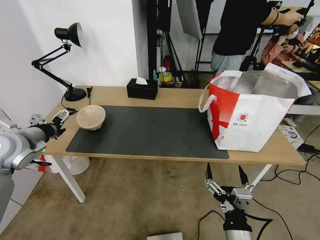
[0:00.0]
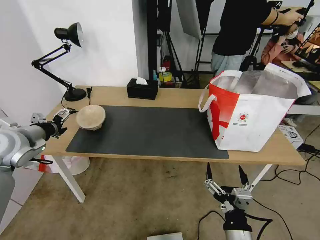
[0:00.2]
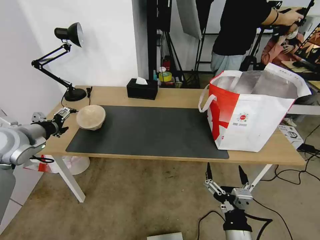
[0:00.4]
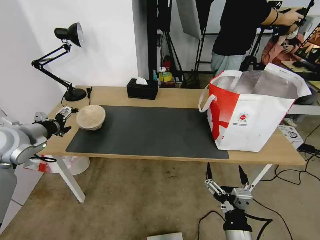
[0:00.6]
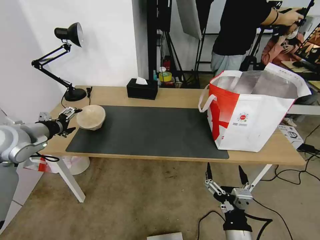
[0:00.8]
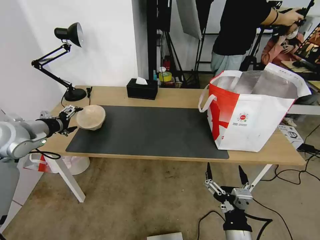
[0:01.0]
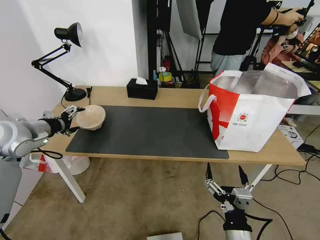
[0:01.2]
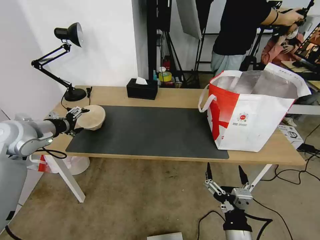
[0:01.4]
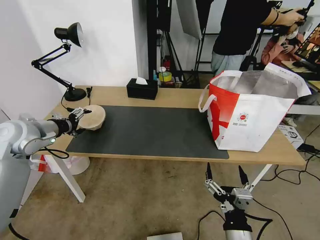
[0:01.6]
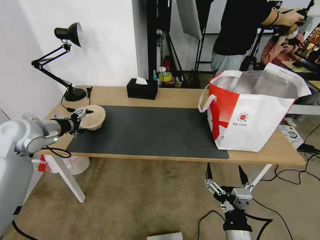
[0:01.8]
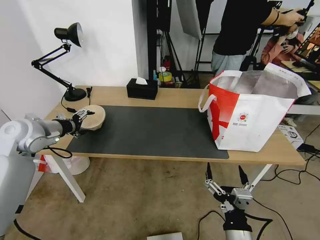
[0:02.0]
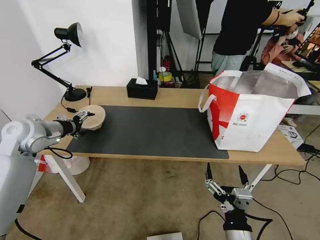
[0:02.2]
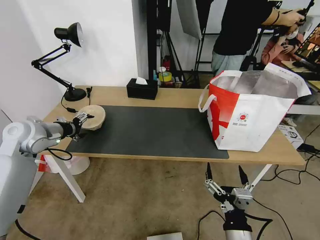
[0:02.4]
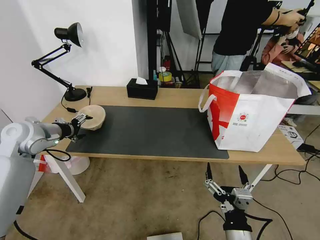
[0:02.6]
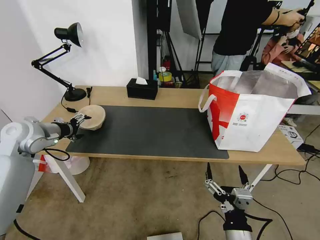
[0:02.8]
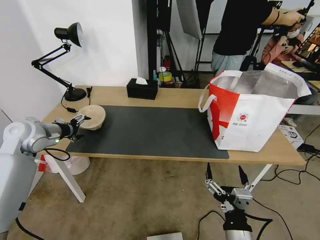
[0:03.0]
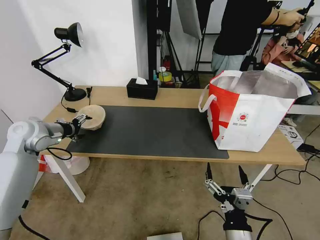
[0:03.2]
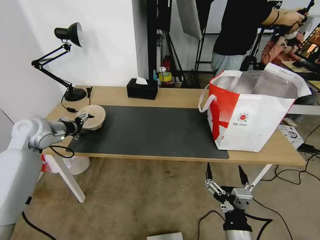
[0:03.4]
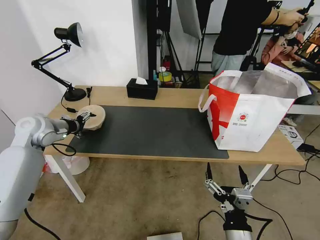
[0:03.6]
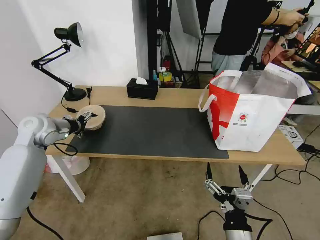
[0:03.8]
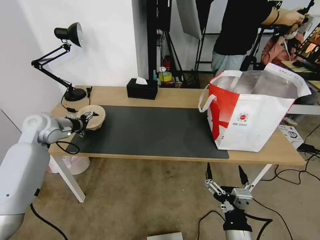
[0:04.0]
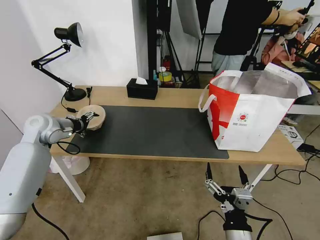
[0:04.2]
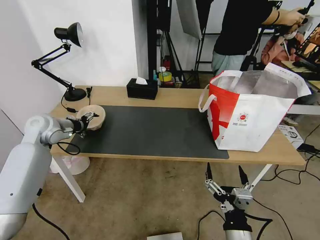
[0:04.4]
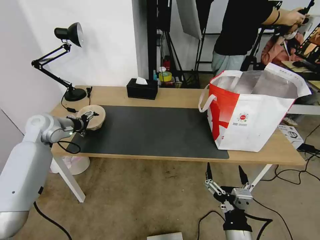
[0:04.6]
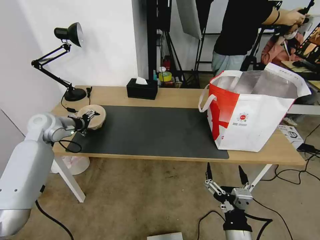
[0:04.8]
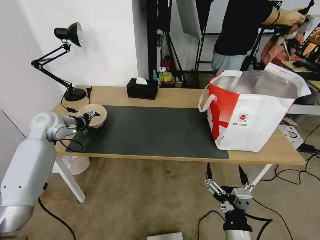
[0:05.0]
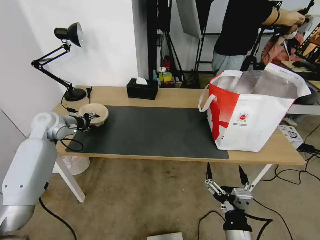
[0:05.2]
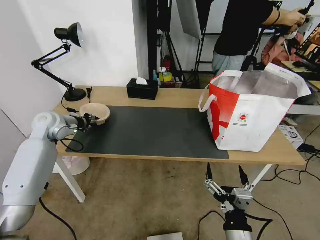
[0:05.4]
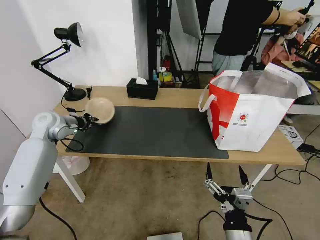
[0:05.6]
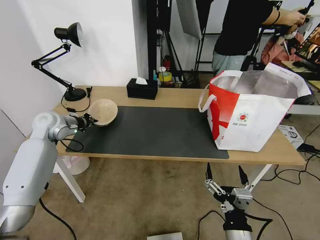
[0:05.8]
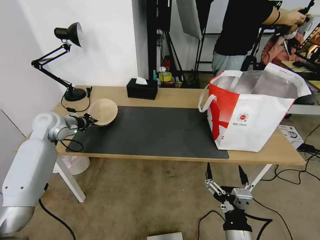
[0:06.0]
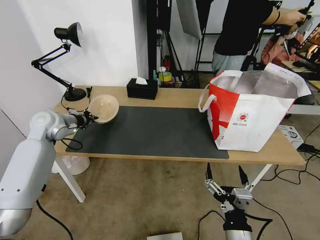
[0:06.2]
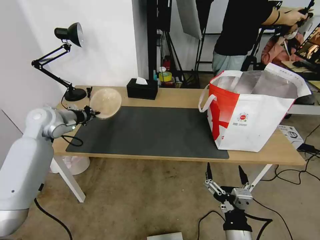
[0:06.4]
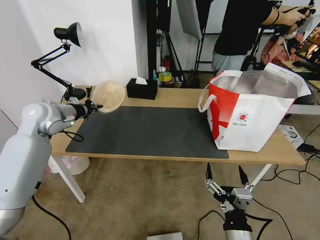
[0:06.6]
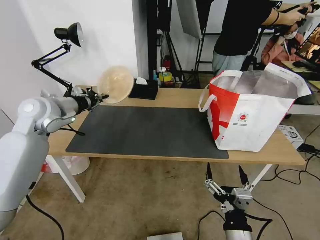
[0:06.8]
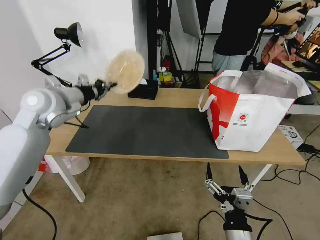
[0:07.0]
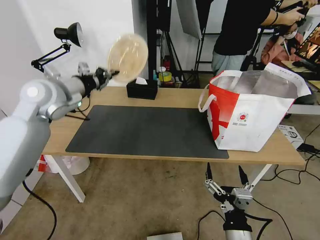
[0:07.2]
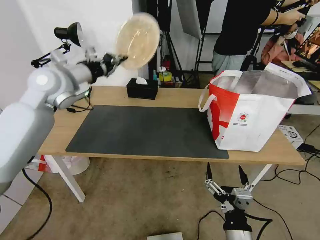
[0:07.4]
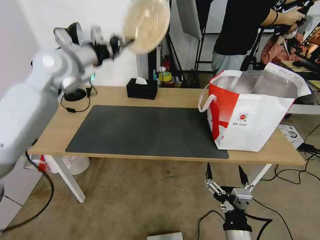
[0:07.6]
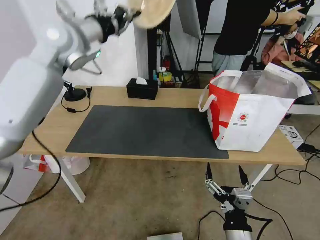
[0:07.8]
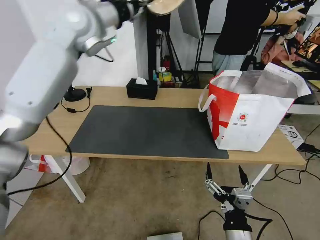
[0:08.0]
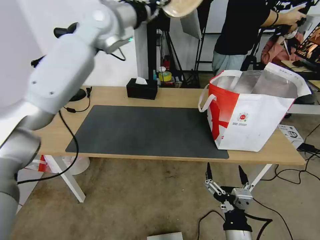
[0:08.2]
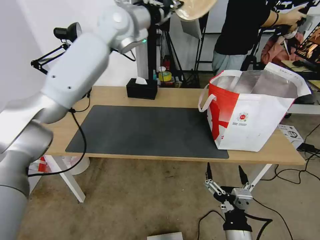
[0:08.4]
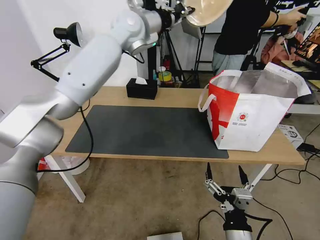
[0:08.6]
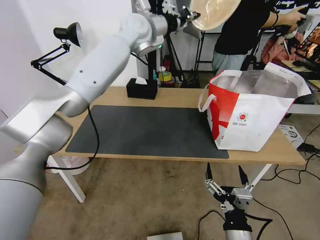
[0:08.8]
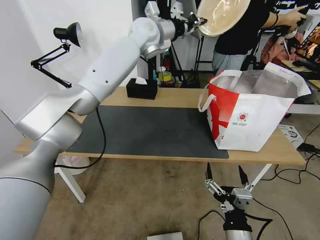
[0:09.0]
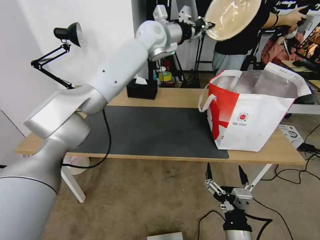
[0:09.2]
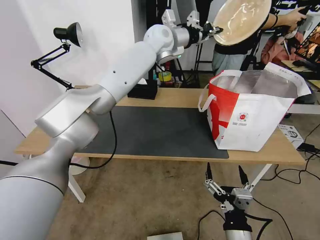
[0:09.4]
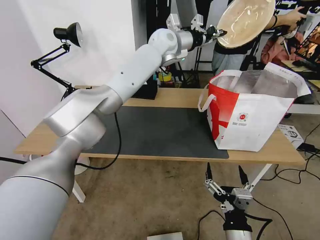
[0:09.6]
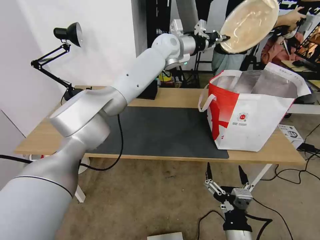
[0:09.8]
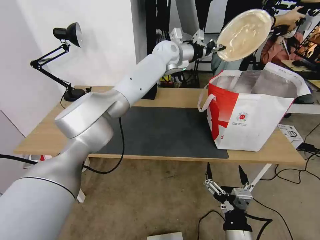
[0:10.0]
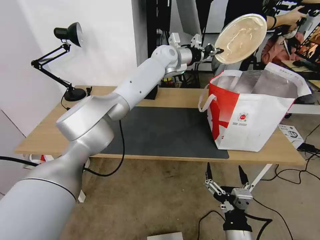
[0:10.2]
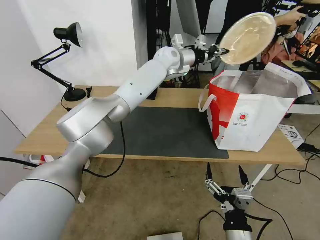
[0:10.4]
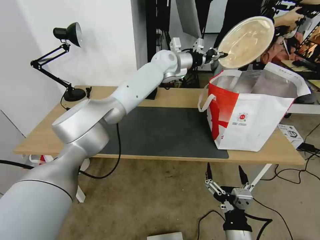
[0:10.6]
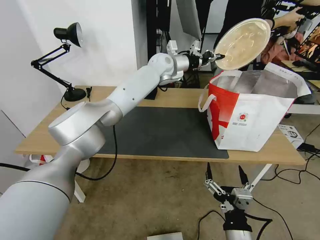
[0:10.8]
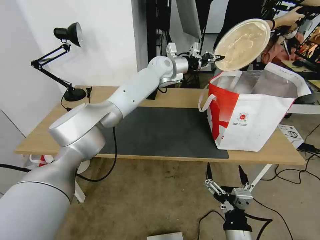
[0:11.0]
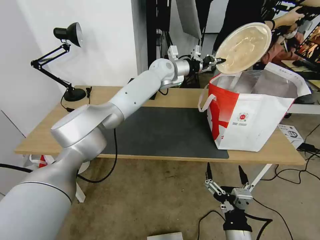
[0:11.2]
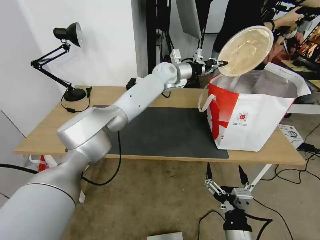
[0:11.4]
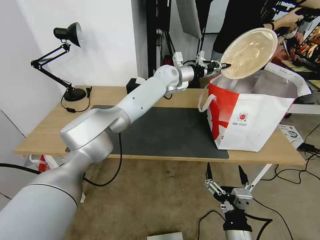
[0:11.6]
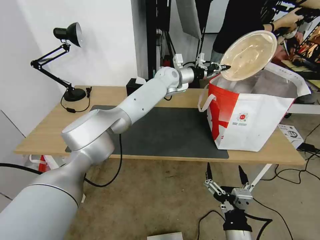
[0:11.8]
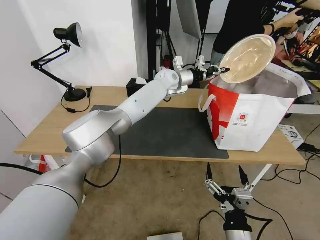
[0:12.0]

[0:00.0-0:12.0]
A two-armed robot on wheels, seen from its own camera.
Task of the whole recording: Pick up the trash from the table and place it into the takeout bag.
0:00.0 to 0:01.6: The grippers stay close to where they were, moving slightly.
0:01.6 to 0:03.0: The grippers stay close to where they were, moving slightly.
0:03.0 to 0:04.4: The left gripper shifts by about 5 cm.
0:04.4 to 0:06.0: The left gripper closes.
0:06.0 to 0:07.6: The left gripper heads upward and to the right, covering about 20 cm.
0:07.6 to 0:09.0: The left gripper moves to the right and forward, about 25 cm.
0:09.0 to 0:10.4: The left gripper goes roughly 10 cm downward and to the right.
0:10.4 to 0:12.0: The left gripper moves downward, roughly 10 cm.

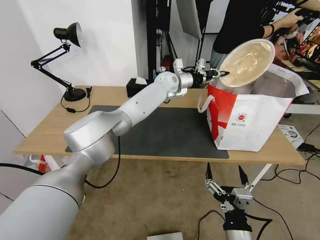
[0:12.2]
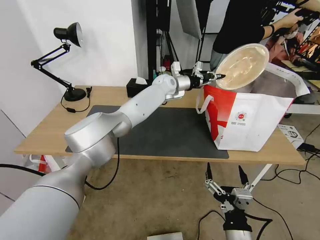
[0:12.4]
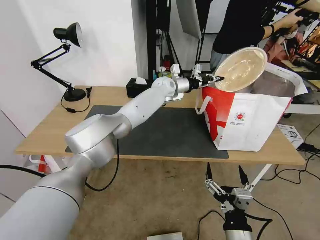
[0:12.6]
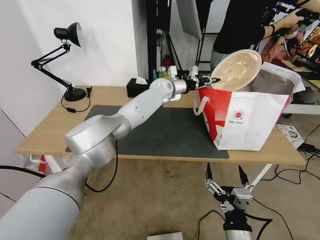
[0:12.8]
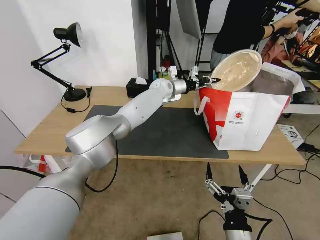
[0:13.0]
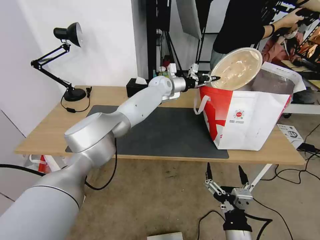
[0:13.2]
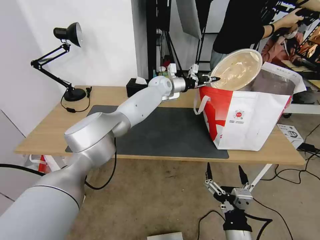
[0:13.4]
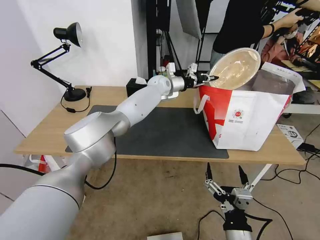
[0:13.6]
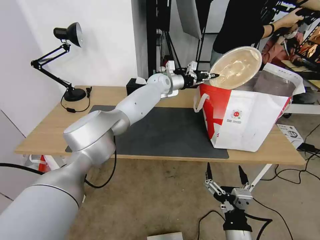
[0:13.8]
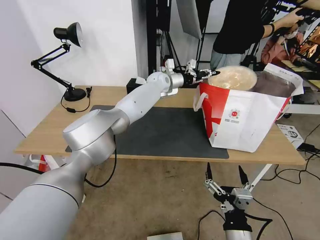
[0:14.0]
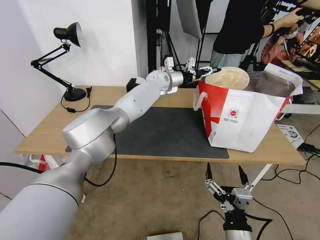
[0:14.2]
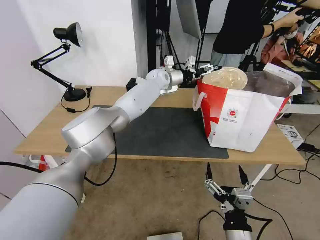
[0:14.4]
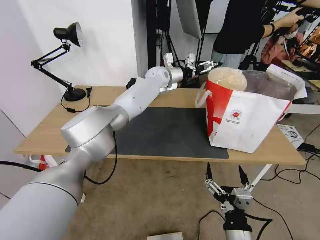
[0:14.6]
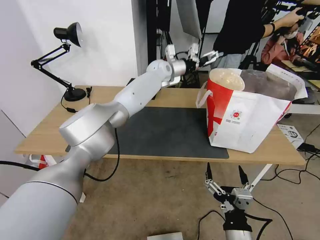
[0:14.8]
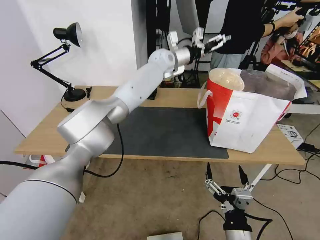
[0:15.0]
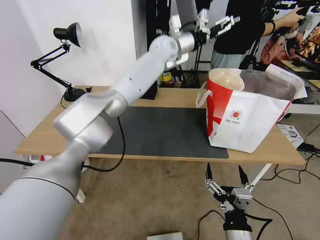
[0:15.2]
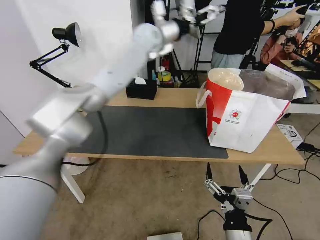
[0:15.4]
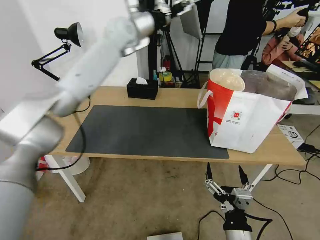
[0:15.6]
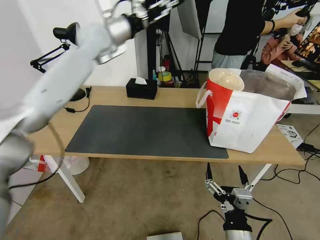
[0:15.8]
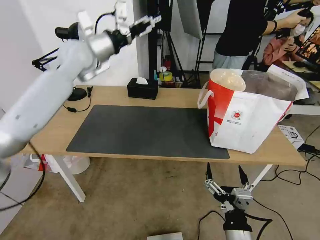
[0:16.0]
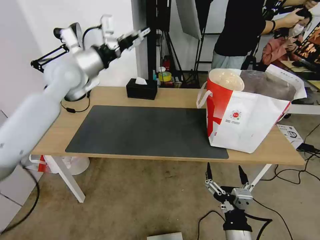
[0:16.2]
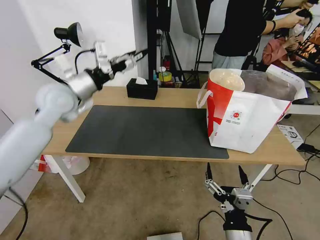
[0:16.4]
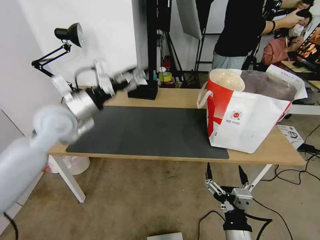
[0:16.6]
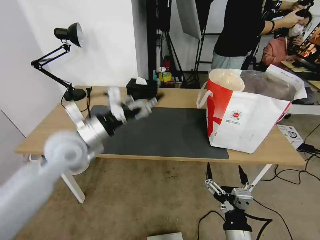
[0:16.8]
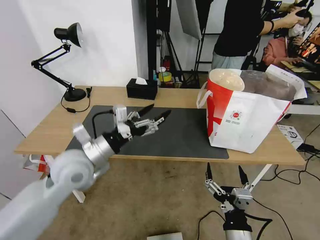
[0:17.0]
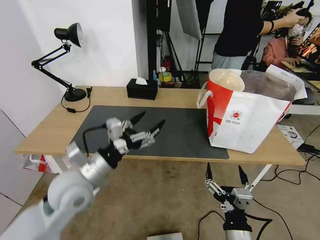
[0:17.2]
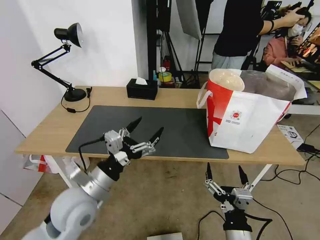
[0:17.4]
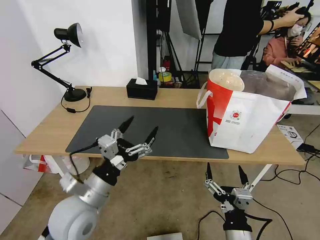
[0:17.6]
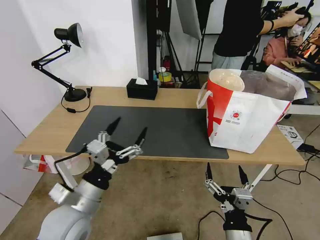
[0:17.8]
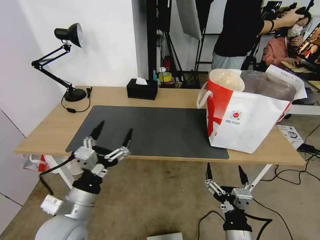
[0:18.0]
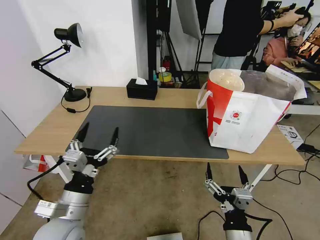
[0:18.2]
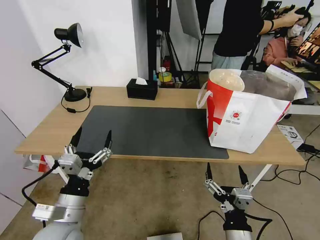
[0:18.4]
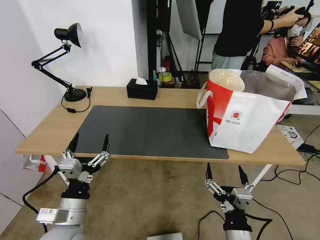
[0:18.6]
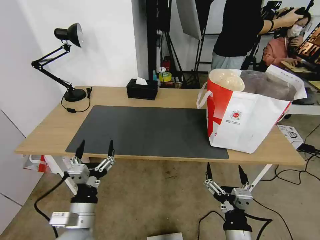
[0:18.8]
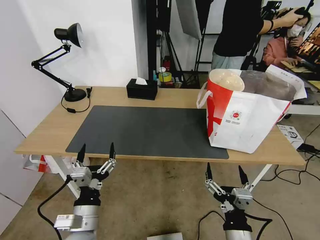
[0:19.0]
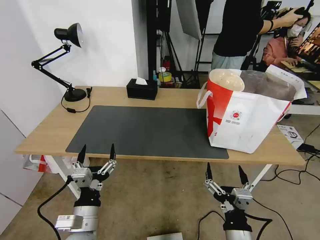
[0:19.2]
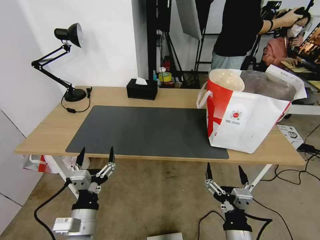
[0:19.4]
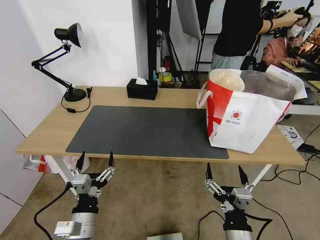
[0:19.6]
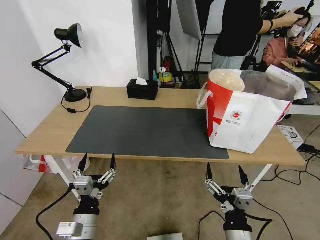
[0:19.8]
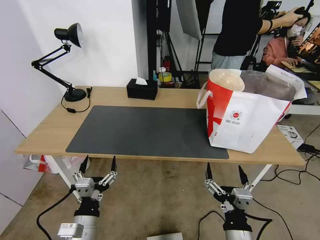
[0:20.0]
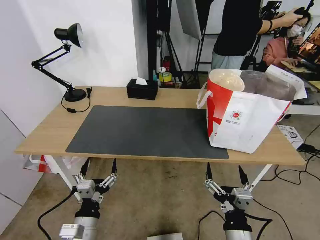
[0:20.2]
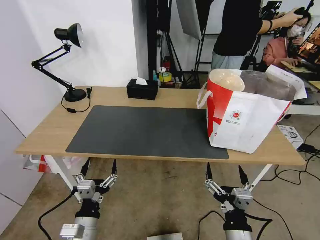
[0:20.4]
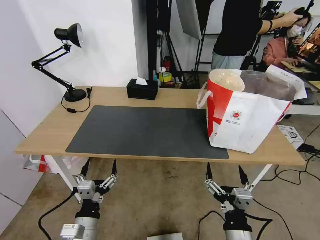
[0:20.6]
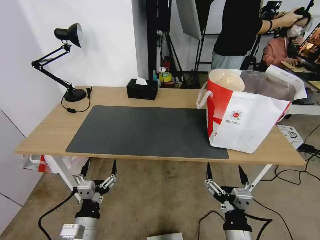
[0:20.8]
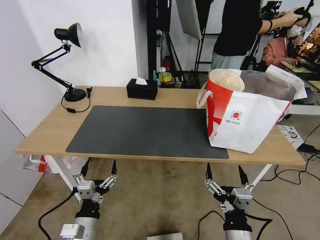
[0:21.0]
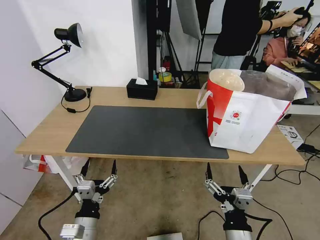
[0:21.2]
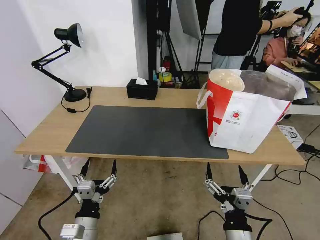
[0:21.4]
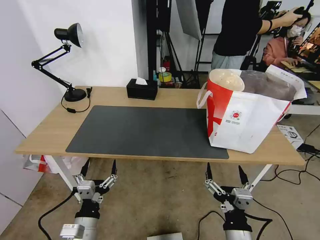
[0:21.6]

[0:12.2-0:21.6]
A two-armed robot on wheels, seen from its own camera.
Task of the whole recording: Pick up the trash from the table and place it into the takeout bag.
0:12.2 to 0:13.8: The grippers make only small movements.
0:13.8 to 0:15.4: The left gripper heads upward, covering approximately 15 cm, and opens its fingers.
0:15.4 to 0:17.0: The left gripper travels backward, downward and to the left by approximately 40 cm.
0:17.0 to 0:18.4: The left gripper shifts roughly 15 cm backward and downward.
0:18.4 to 0:20.0: The left gripper shifts roughly 5 cm downward.
0:20.0 to 0:21.6: The grippers stay close to where they were, moving slightly.

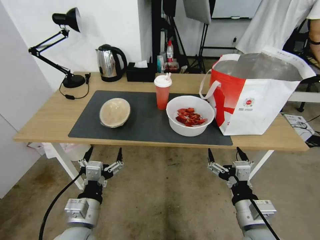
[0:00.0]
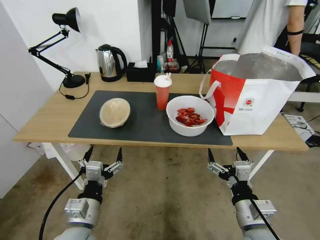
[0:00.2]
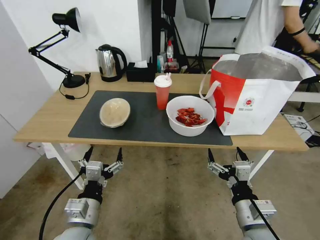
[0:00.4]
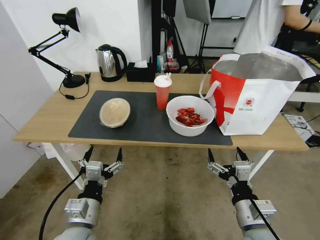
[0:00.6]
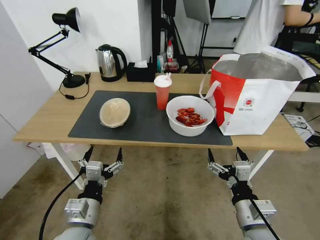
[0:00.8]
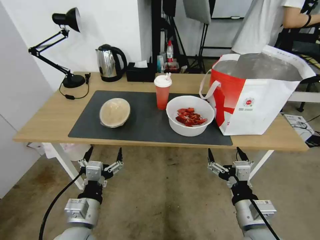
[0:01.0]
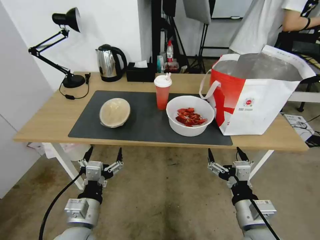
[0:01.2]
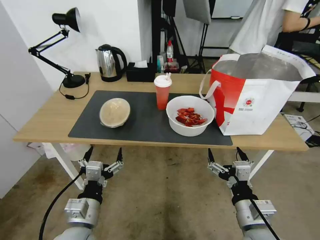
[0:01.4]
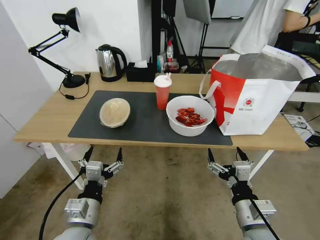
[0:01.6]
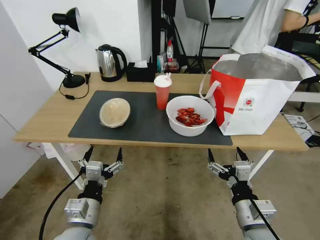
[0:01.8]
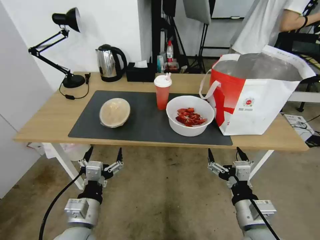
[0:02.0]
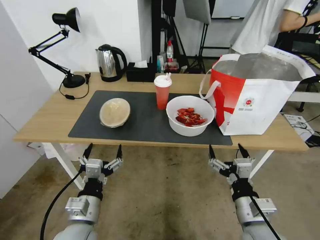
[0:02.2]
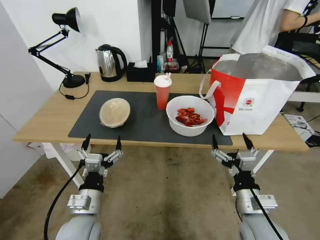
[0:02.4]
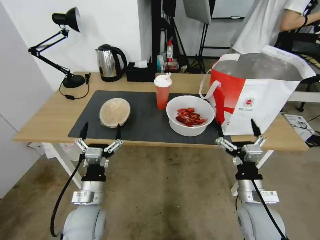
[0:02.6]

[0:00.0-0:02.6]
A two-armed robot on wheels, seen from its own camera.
Task of the whole recording: Pick up the trash from the table and place it into the takeout bag.
0:01.2 to 0:02.6: Both grippers travel together forward, approximately 5 cm.
